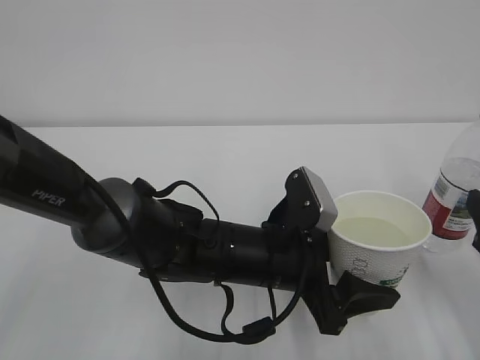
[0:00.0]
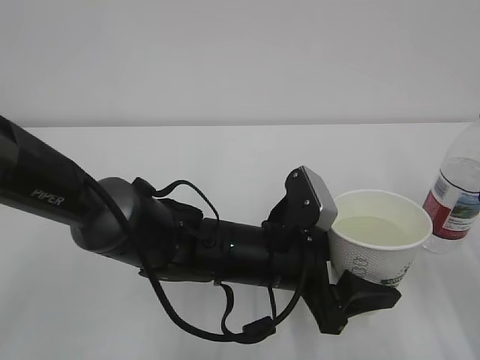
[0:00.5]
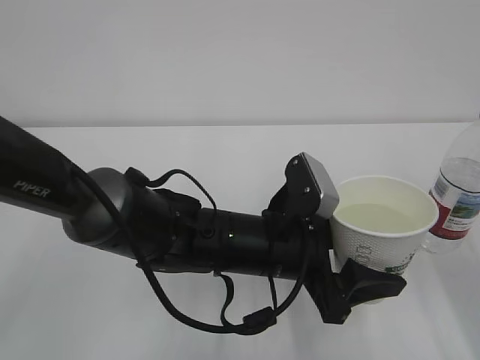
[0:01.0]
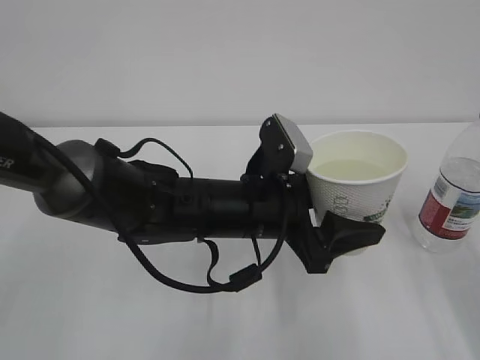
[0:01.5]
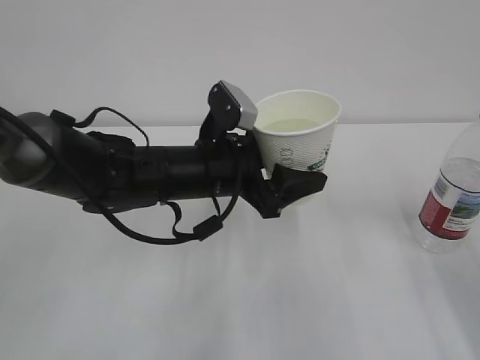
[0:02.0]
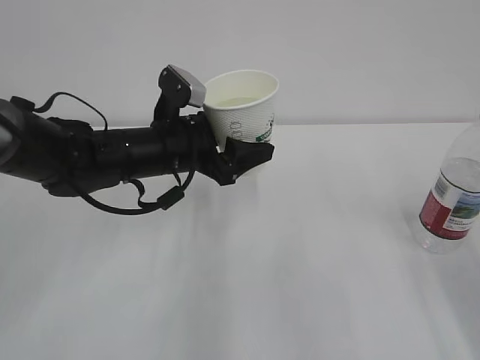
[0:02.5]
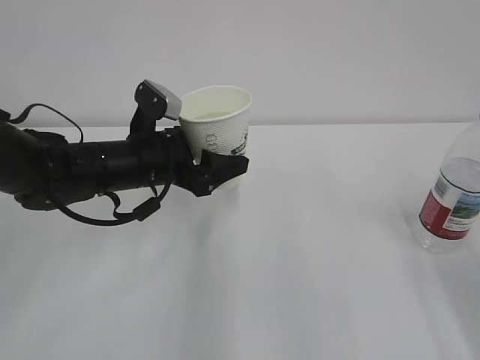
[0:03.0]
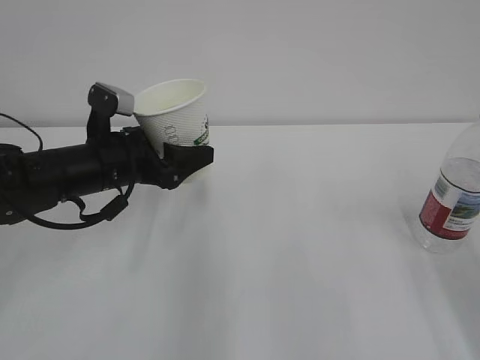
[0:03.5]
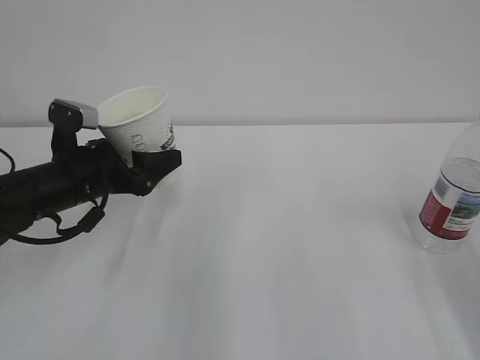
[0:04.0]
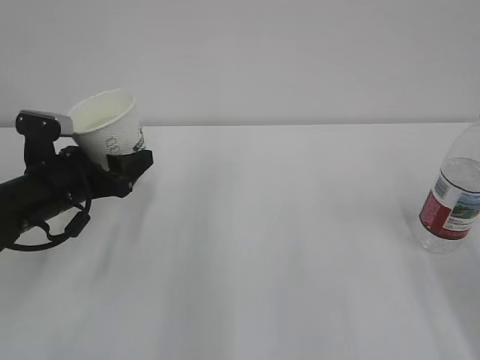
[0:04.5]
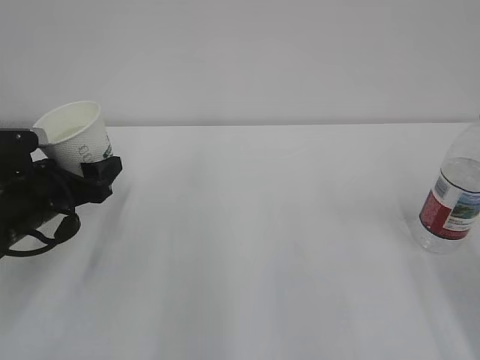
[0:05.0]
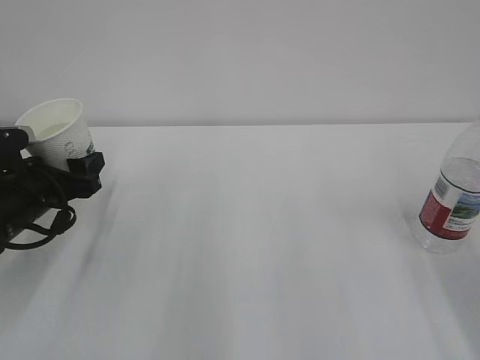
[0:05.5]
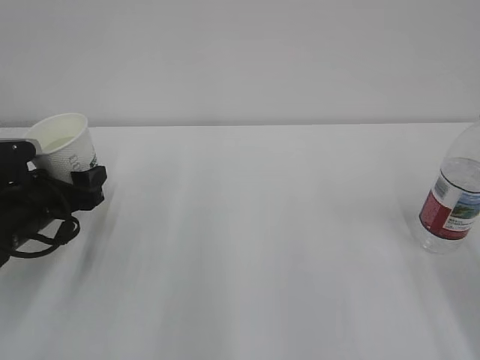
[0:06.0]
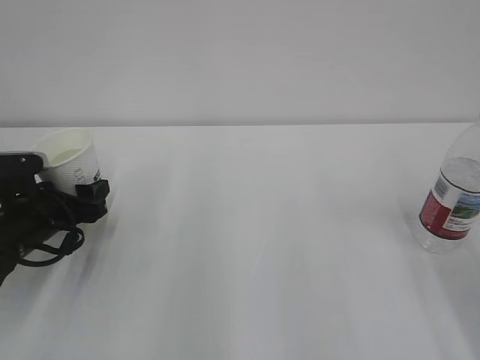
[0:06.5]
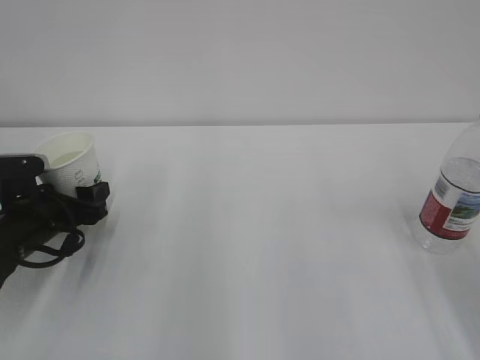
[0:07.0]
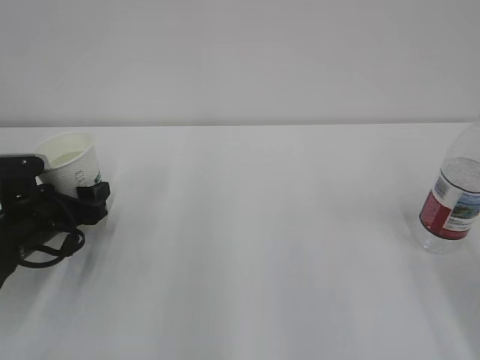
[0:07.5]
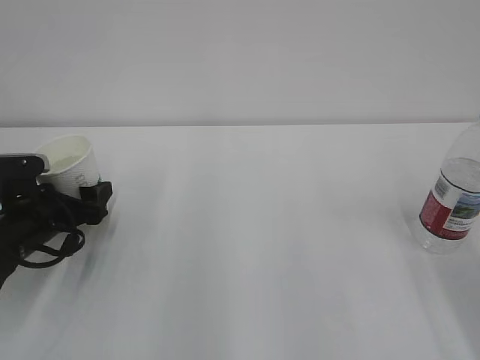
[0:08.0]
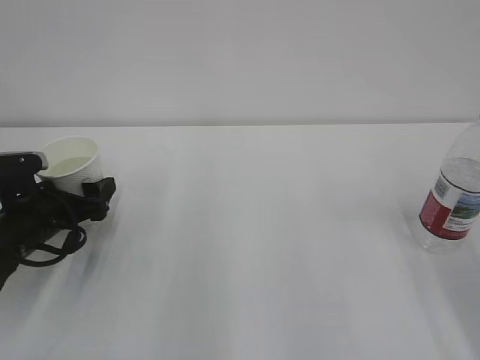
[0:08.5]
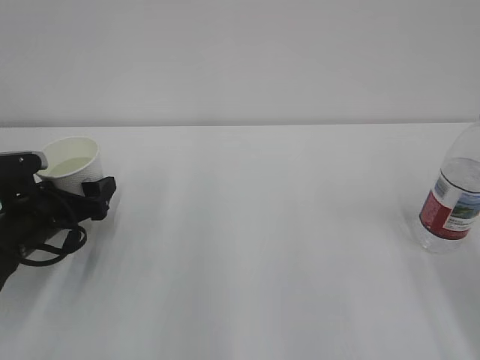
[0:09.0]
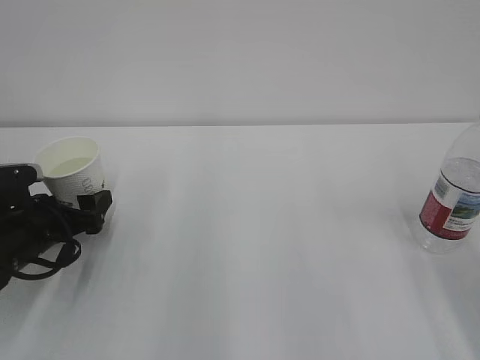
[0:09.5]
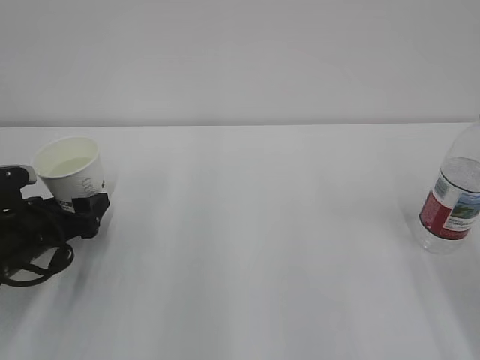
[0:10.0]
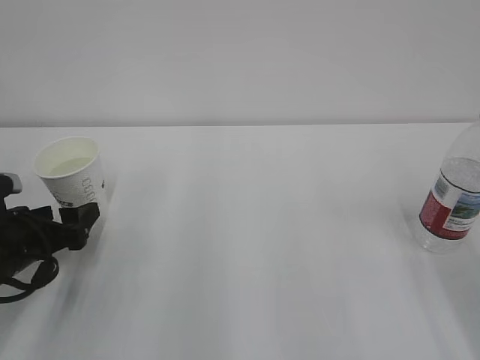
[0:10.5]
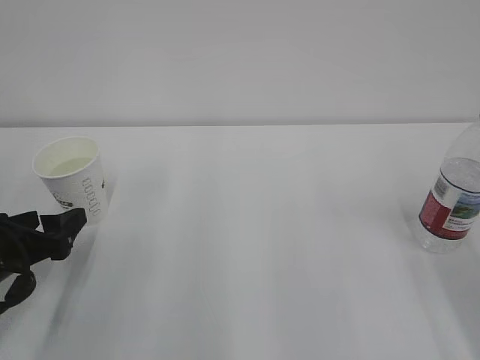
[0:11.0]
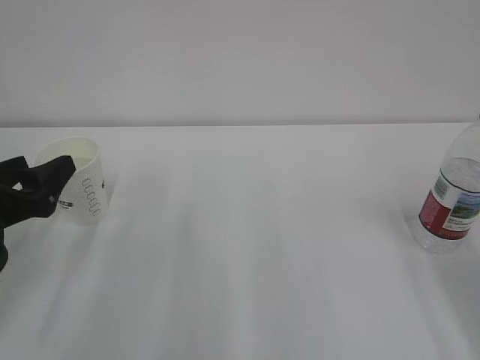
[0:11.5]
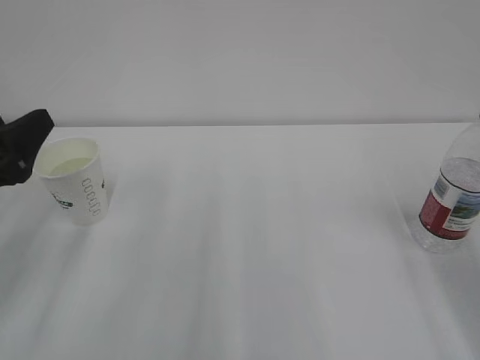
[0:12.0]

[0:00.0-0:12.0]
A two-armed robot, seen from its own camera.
0:00.0 to 0:02.0: The left gripper goes approximately 10 cm forward, to the left and upward; the right gripper travels upward by some 10 cm.
0:02.0 to 0:04.0: The left gripper goes about 15 cm to the left.
0:04.0 to 0:06.0: The left gripper goes about 5 cm to the left.
0:06.0 to 0:10.0: The grippers move only a little.
0:10.0 to 0:12.0: The left gripper moves upward and backward, roughly 15 cm.

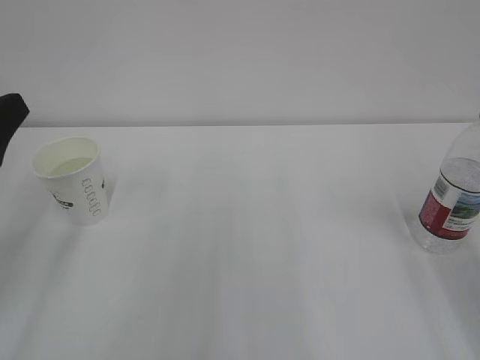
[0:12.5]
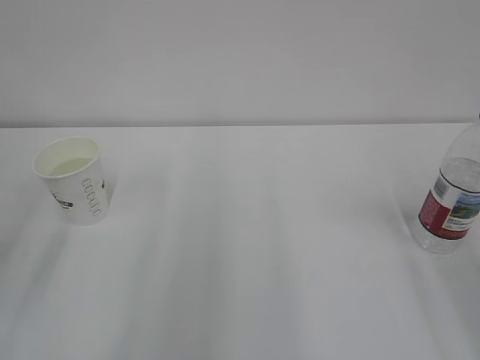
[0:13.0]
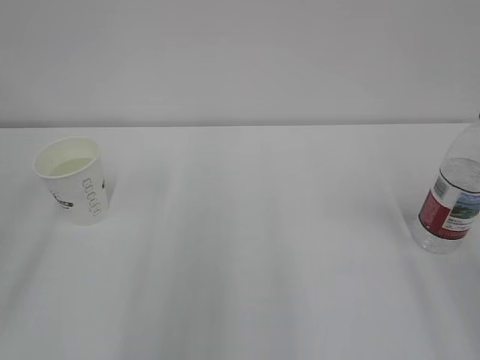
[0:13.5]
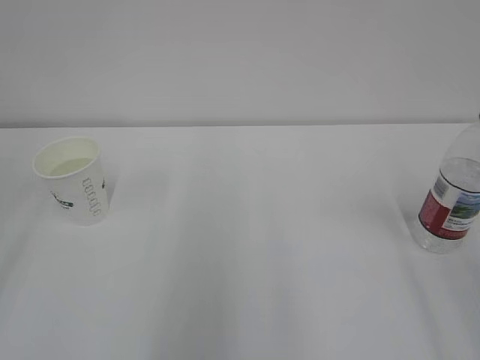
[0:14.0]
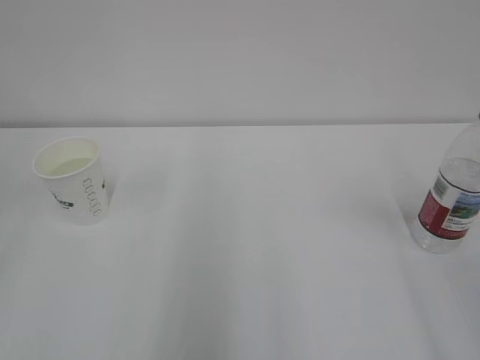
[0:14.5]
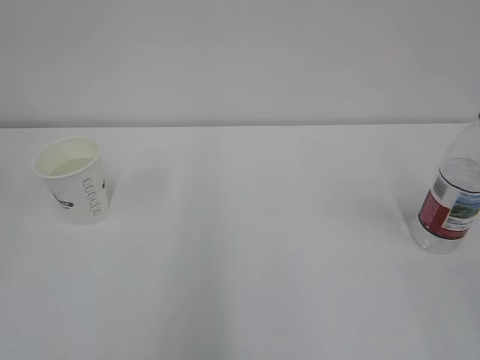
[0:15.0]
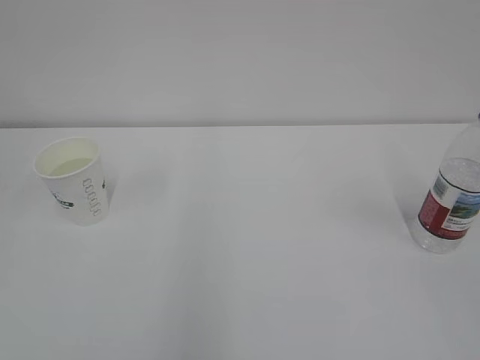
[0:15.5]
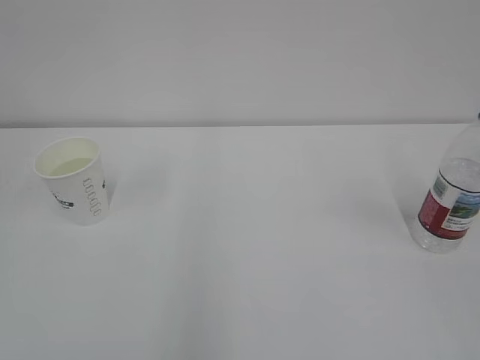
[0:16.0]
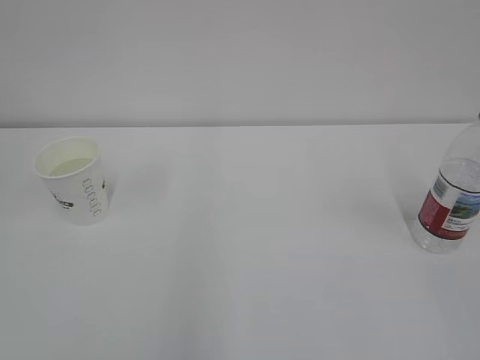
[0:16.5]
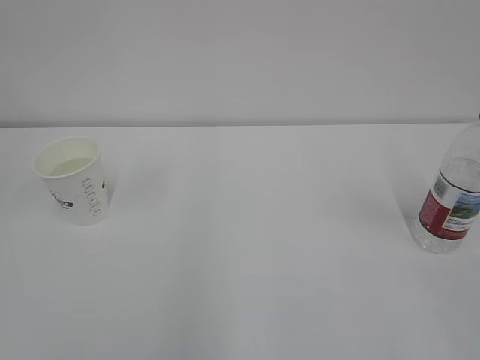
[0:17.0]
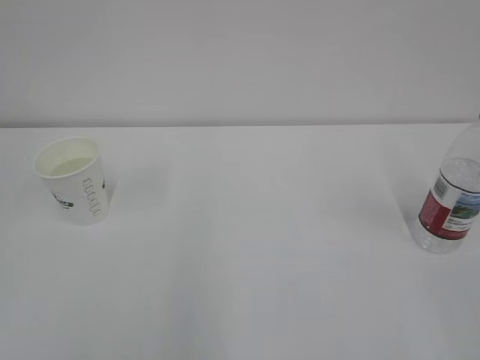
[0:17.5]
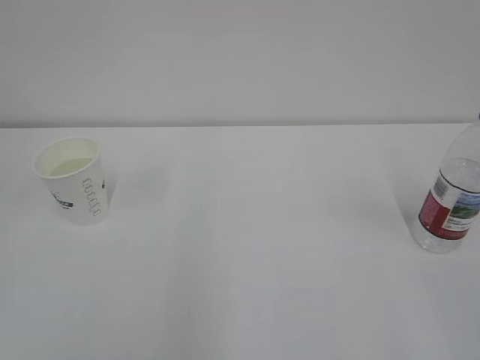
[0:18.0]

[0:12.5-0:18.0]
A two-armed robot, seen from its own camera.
0:12.5 to 0:14.5: The left gripper travels backward and upward by about 20 cm.
